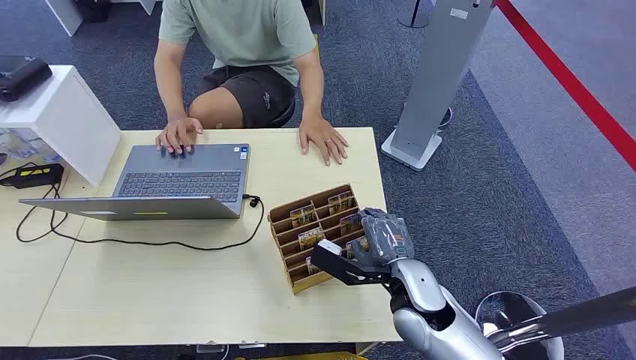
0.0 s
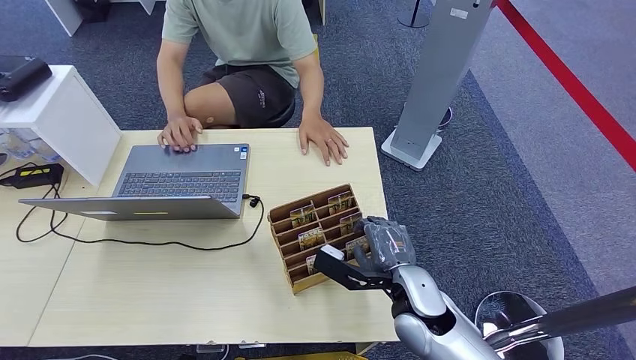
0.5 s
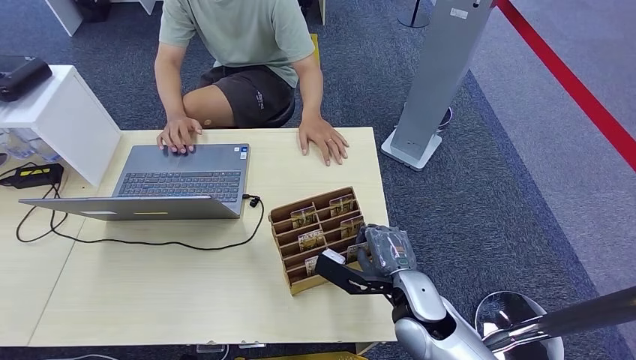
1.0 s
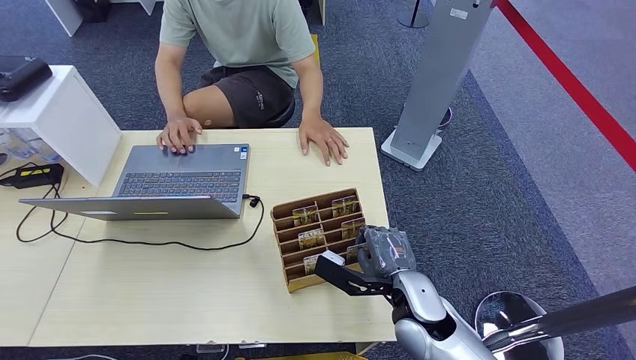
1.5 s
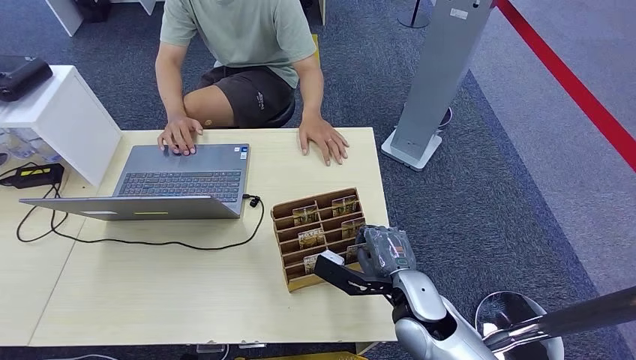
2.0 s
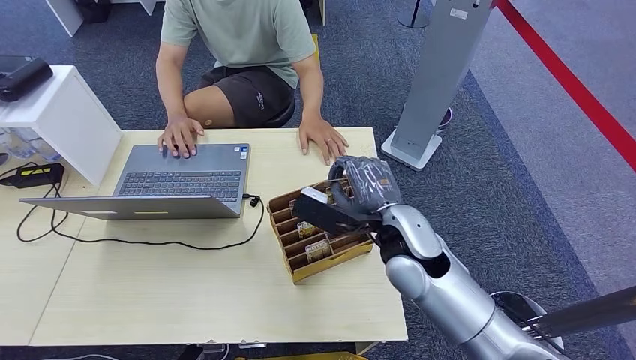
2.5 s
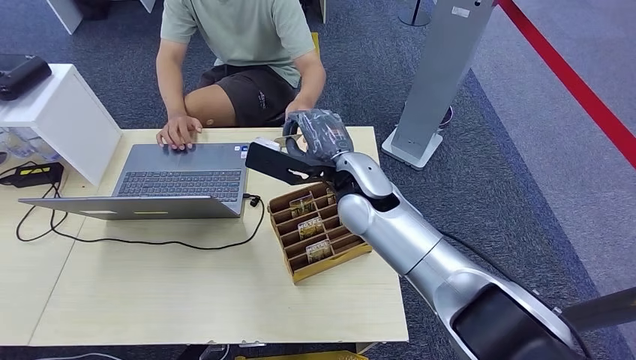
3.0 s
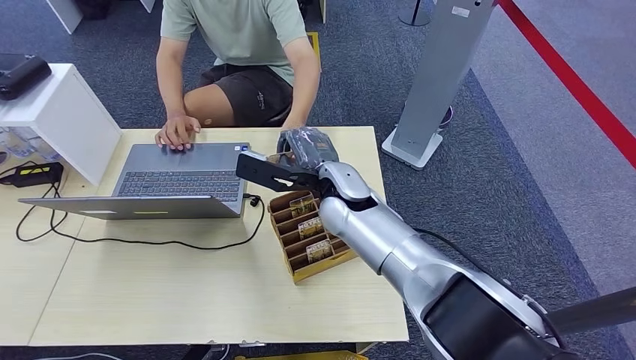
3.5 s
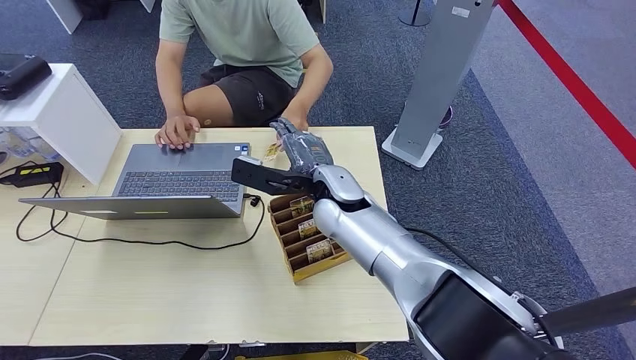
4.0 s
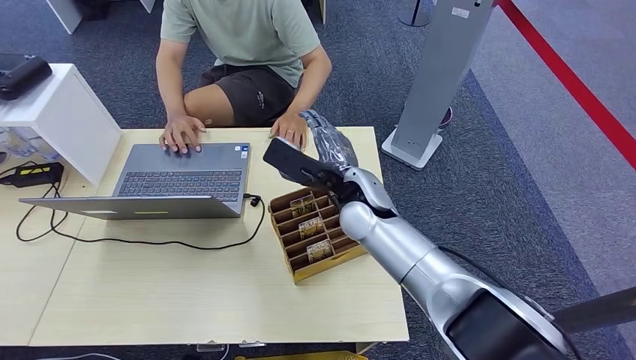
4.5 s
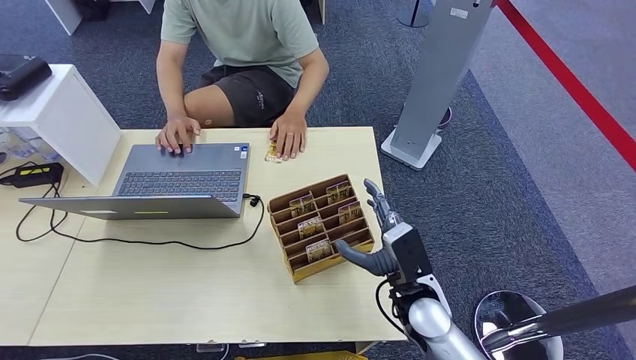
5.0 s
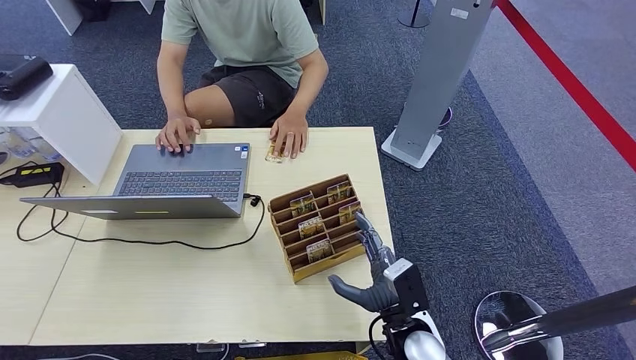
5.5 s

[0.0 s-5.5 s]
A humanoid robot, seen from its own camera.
Step, 0.0 to 2.0 s: Pick up the key card from the card box.
Step, 2.5 to 5.5 s: Hand the key card to the target.
2.0 to 3.5 s: The right hand heads forward, to the left and upward, covering about 20 cm.
3.5 to 5.5 s: The right hand goes roughly 30 cm backward, downward and to the right.

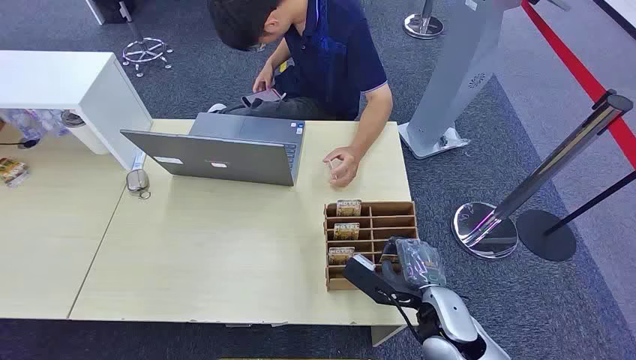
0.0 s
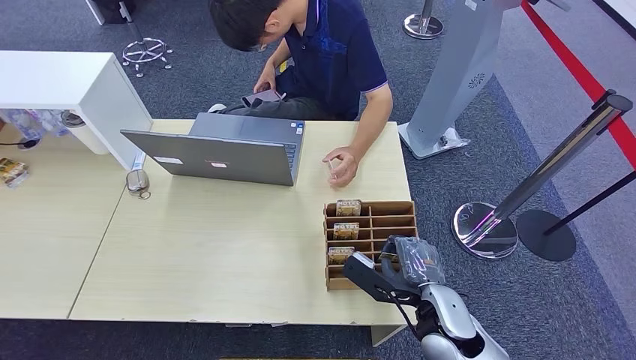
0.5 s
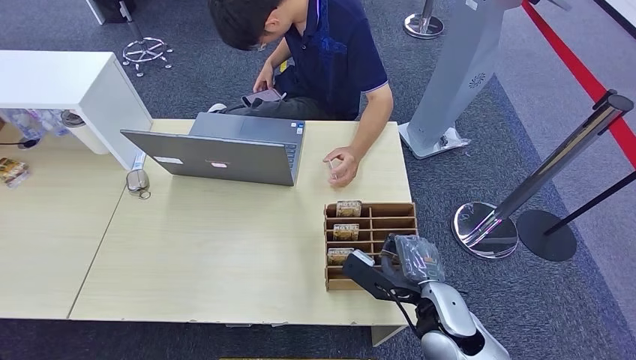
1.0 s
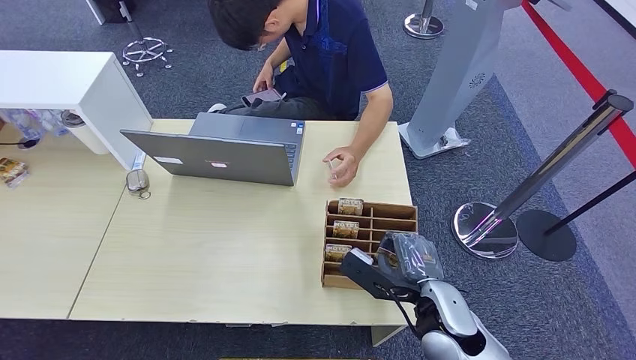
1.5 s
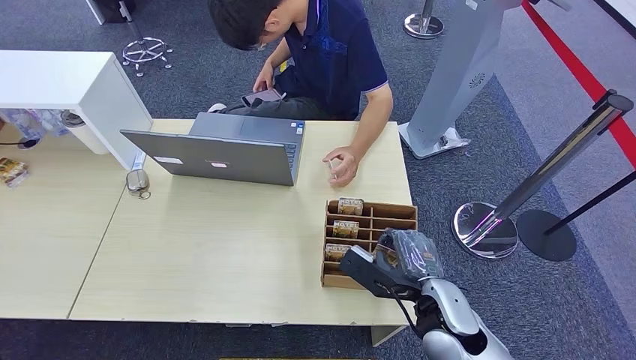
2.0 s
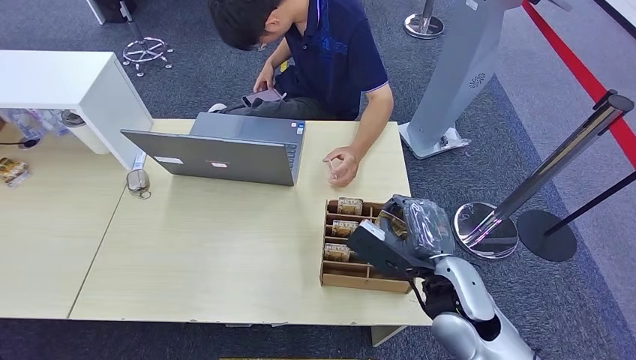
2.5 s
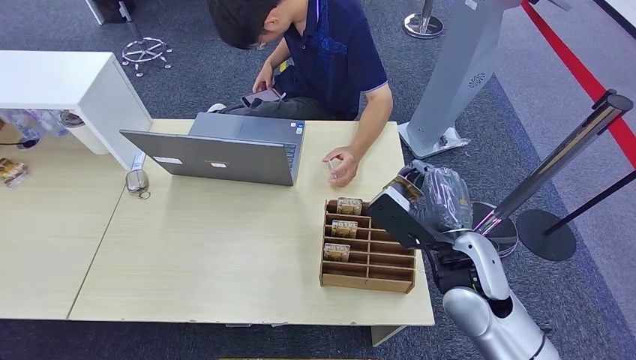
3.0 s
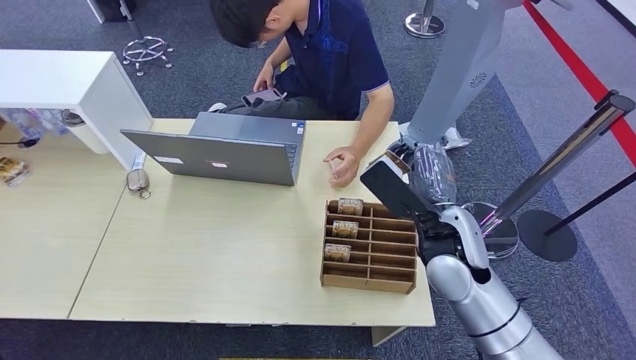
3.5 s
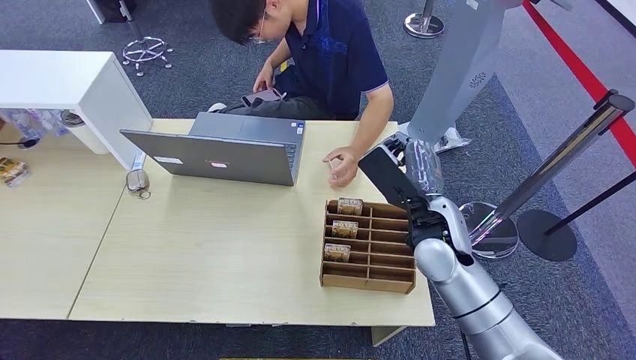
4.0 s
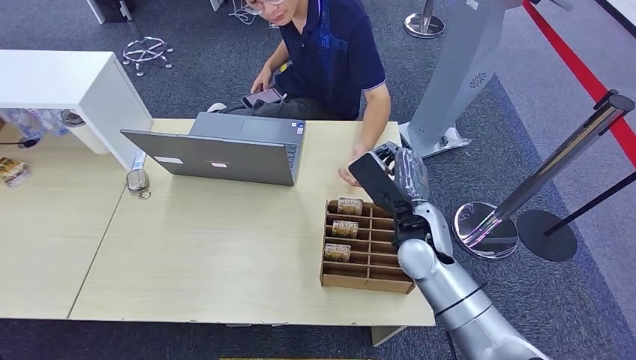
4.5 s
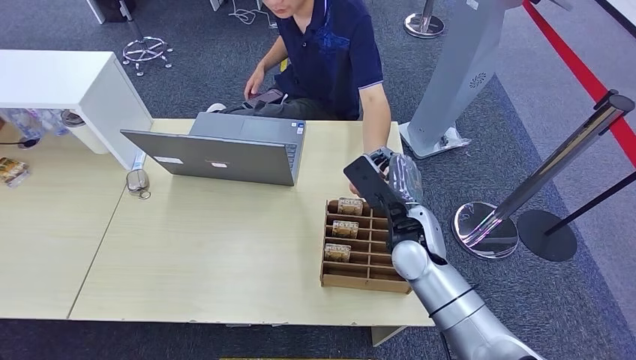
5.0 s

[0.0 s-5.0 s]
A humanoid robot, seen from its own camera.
Step, 0.0 to 1.5 s: Pick up the key card from the card box.
Step, 4.0 to 5.0 s: Hand the key card to the target.
2.5 to 5.0 s: The right hand heads forward, covering some 10 cm.
